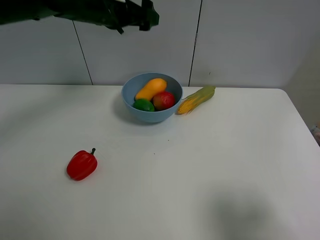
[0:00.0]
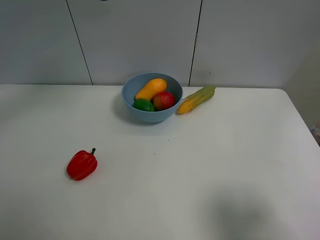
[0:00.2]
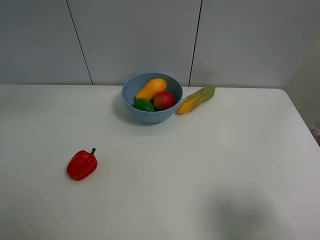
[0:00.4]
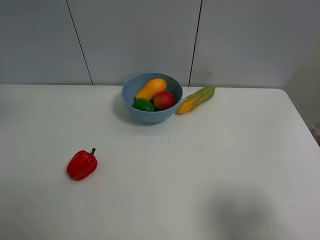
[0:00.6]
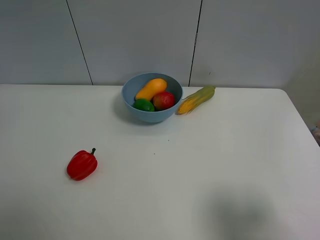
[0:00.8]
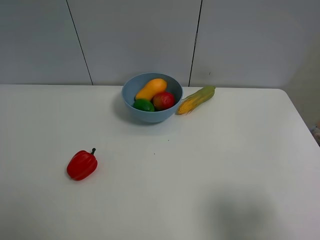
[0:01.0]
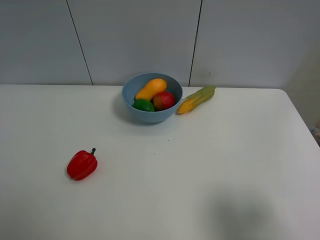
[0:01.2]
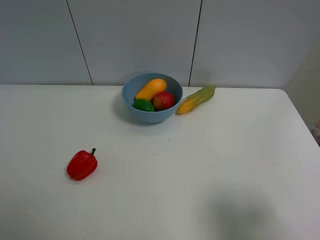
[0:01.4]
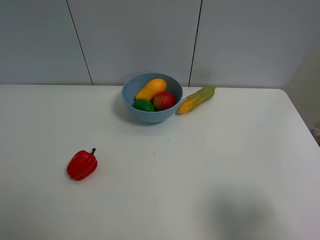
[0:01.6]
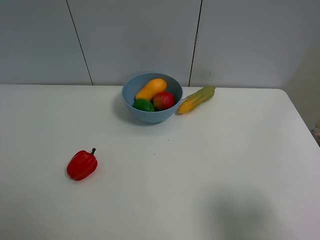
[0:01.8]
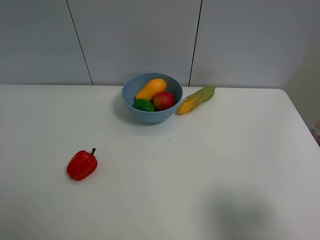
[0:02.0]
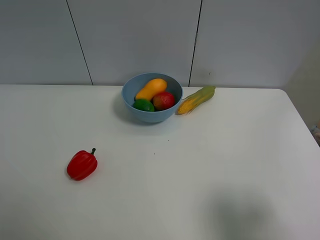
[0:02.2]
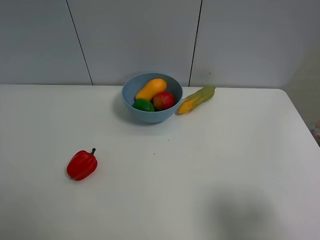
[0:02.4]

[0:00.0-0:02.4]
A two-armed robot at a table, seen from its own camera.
Task of the whole recording: Put the three fruits on the table into a bowl.
0:00.0 to 0:01.2: The left gripper shifts approximately 40 cm backward and to the left.

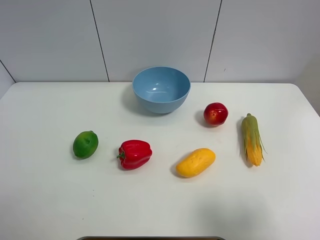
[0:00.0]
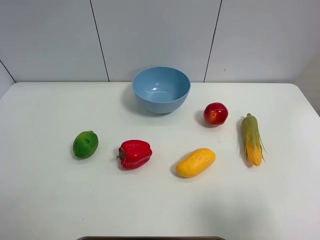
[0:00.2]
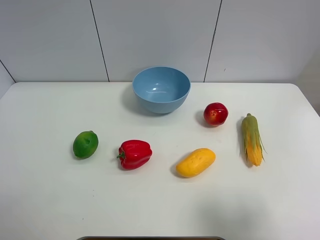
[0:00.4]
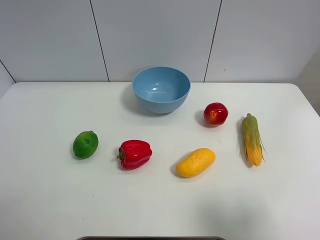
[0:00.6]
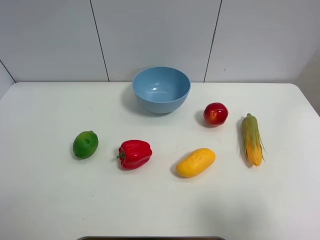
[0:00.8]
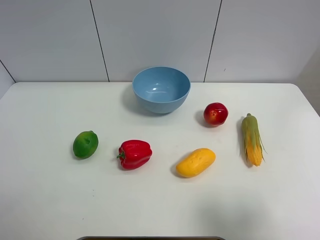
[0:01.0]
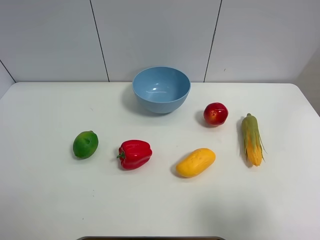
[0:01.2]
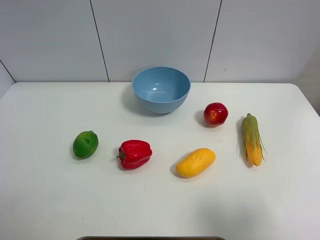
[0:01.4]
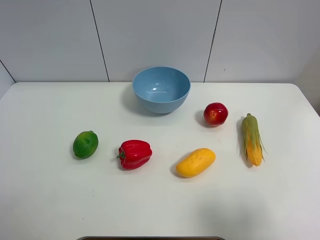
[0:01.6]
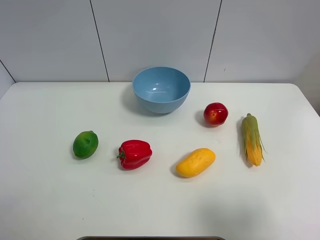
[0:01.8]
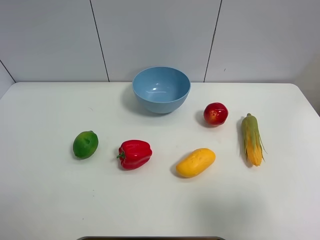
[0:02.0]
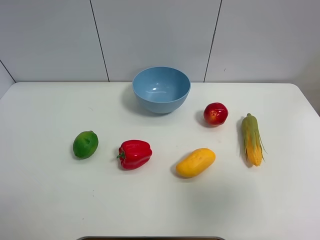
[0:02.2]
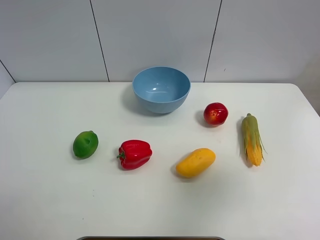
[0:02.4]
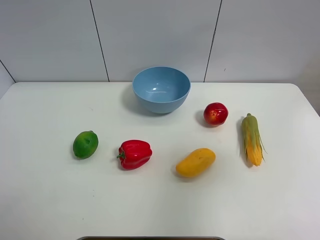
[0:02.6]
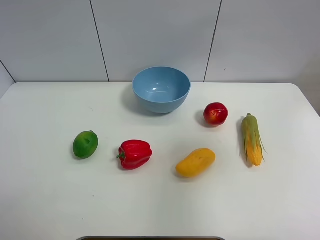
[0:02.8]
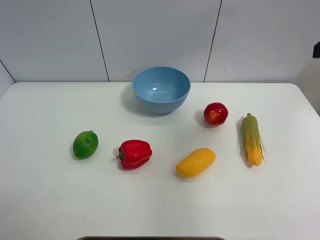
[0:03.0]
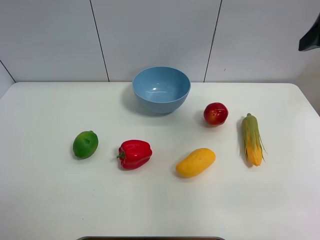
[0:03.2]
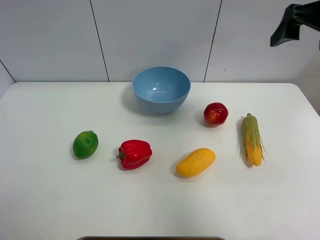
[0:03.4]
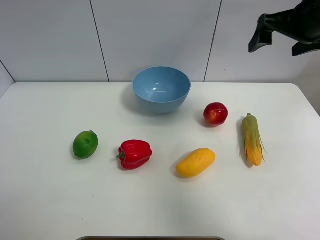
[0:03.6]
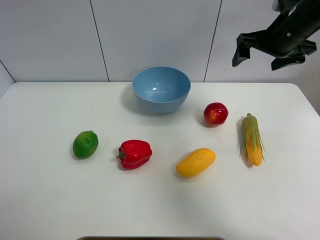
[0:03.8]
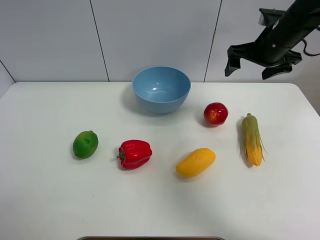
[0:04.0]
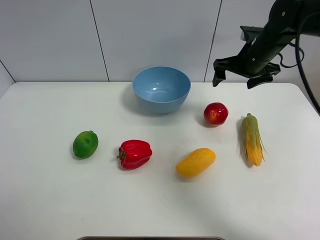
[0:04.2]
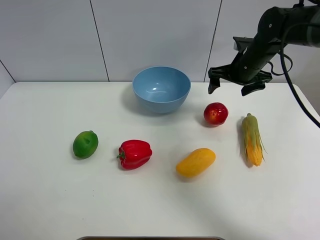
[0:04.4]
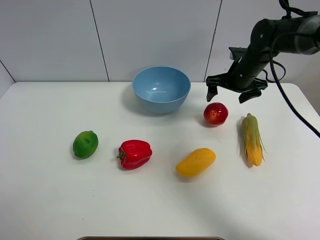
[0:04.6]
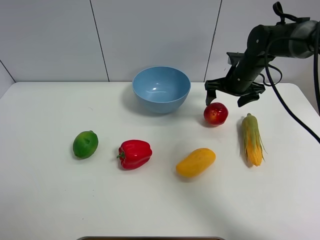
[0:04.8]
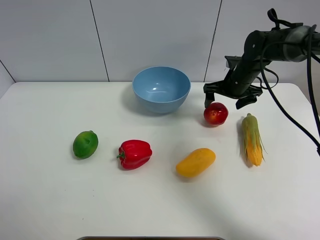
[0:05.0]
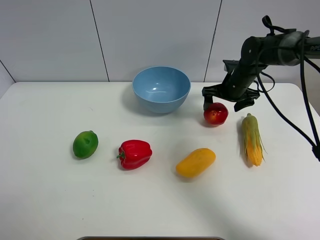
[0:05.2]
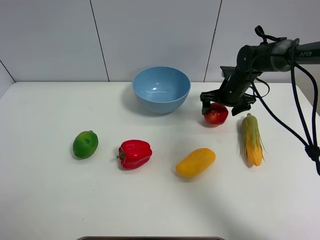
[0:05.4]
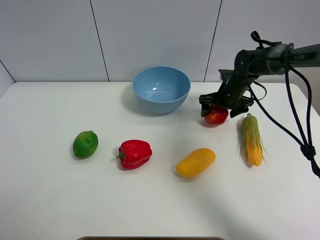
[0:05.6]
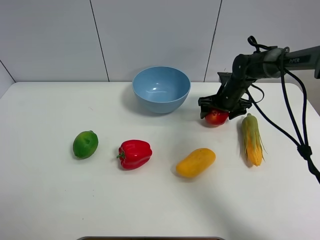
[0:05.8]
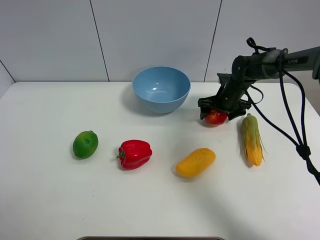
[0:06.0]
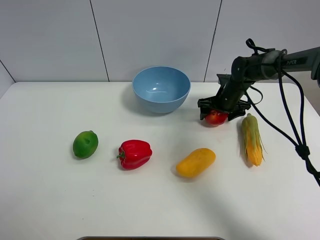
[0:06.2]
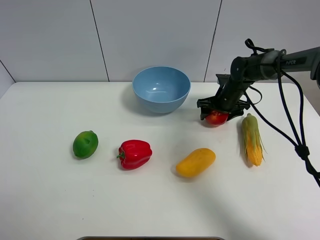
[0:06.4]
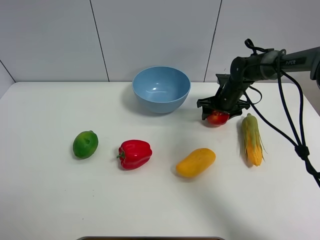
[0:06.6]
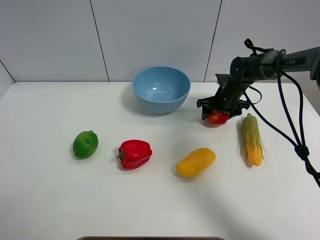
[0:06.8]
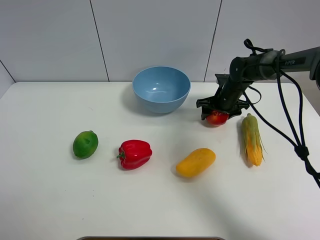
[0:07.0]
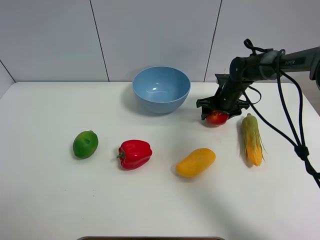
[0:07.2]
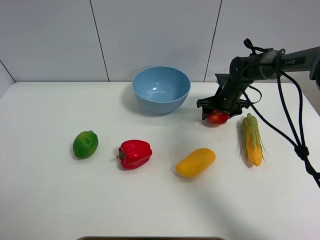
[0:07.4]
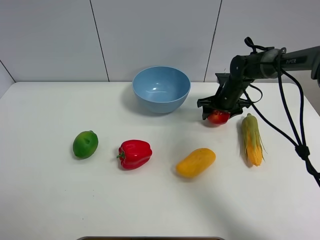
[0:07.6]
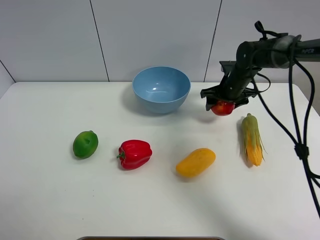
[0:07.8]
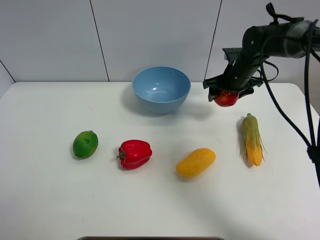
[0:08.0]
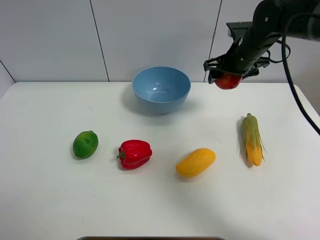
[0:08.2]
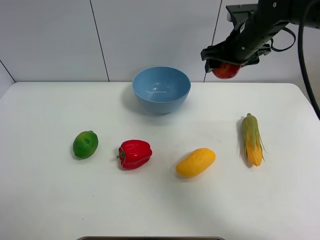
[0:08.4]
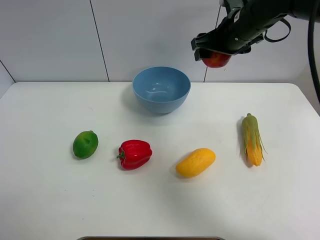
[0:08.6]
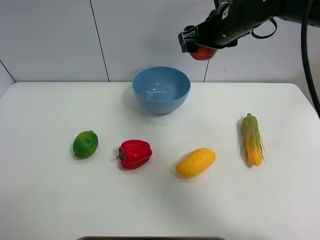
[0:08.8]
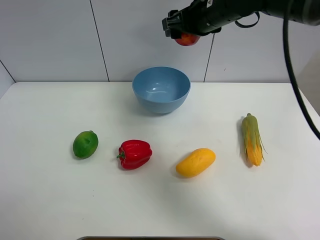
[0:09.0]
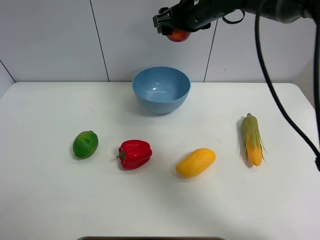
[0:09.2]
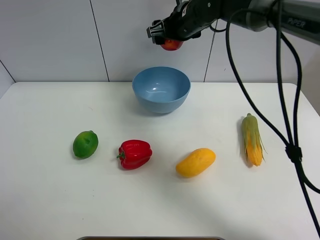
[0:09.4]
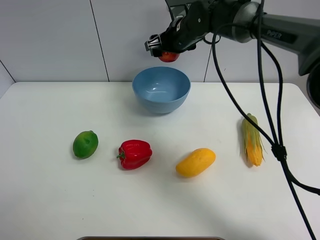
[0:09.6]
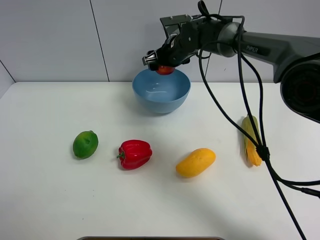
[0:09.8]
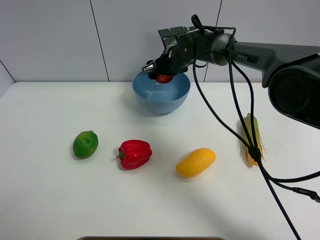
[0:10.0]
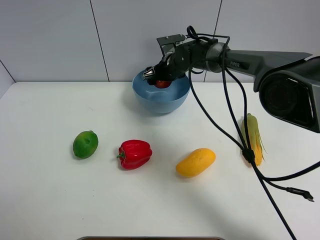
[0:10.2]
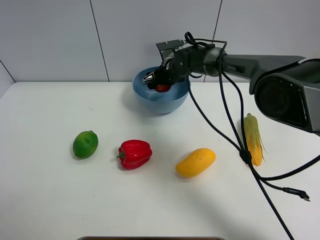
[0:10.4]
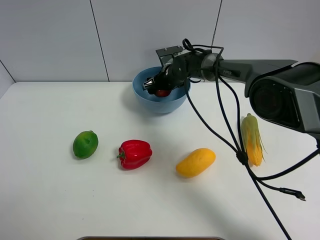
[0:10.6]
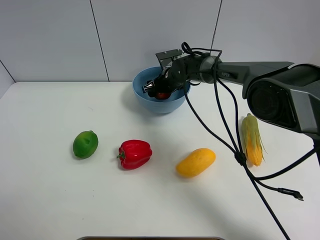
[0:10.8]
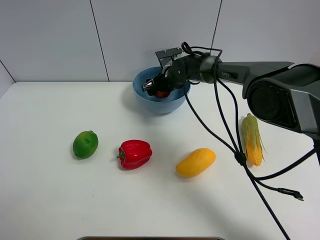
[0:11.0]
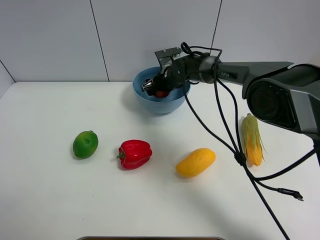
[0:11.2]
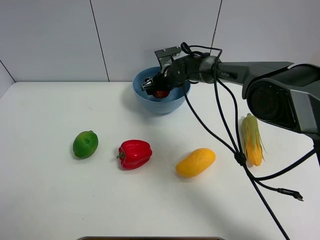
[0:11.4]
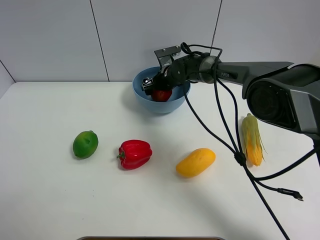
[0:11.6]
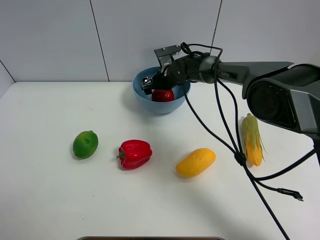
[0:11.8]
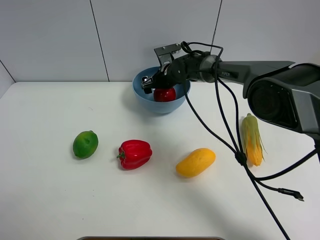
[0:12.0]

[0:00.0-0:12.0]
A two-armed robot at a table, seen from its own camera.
Task of the whole recording: Put the three fruits on the table into a bowl.
Step, 0:00.0 to 0:06.4: Grasp the pomegranate with right gripper.
0:00.0 to 0:01.6: Both grippers stay about where they are.
0:01.6 to 0:03.0: The right gripper goes some 25 cm forward and upward.
0:03.0 to 0:04.4: The right gripper goes about 30 cm forward and downward.
0:04.4 to 0:06.0: The right gripper travels downward by about 10 cm.
0:06.0 to 0:07.6: The right gripper closes its fingers.
0:07.6 to 0:09.0: The right gripper heads upward and to the left, covering some 25 cm.
0:09.0 to 0:10.4: The right gripper goes some 20 cm downward and forward.
0:10.4 to 0:12.0: The right gripper opens its fingers.

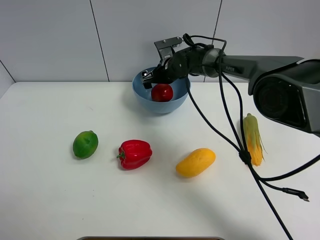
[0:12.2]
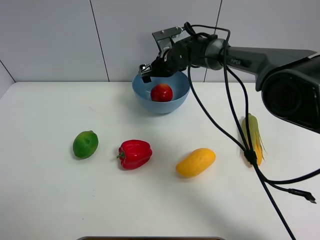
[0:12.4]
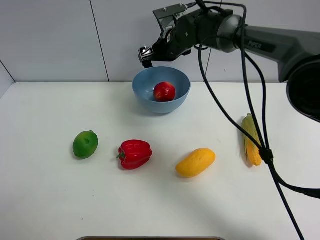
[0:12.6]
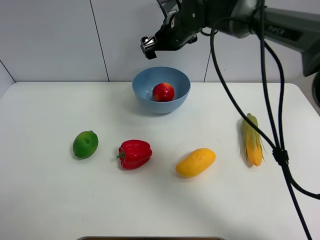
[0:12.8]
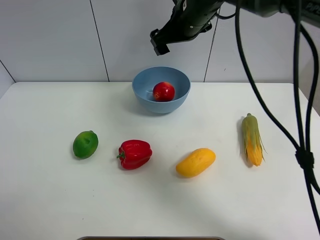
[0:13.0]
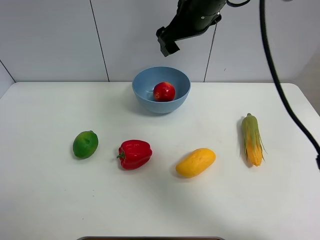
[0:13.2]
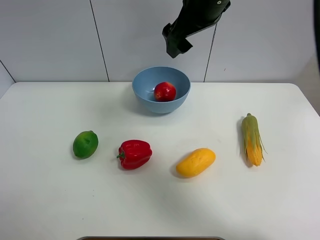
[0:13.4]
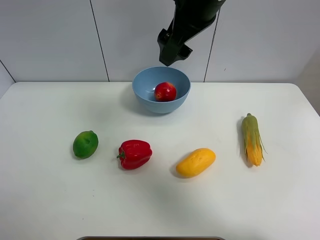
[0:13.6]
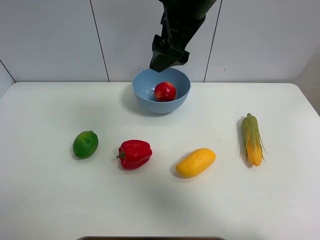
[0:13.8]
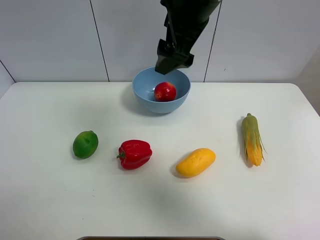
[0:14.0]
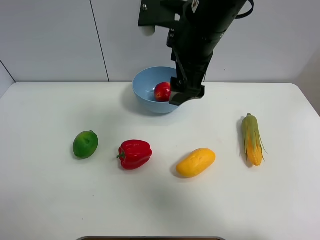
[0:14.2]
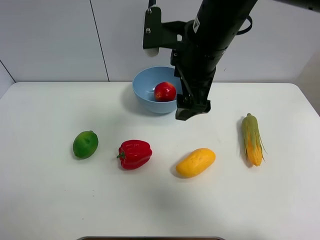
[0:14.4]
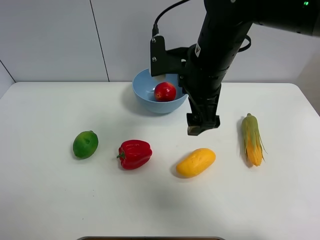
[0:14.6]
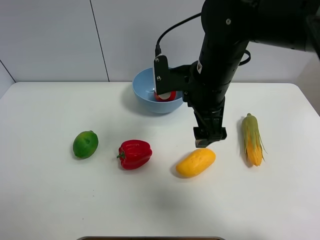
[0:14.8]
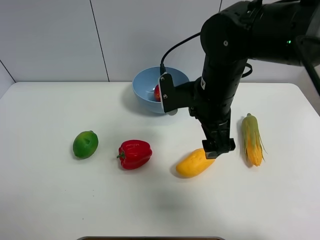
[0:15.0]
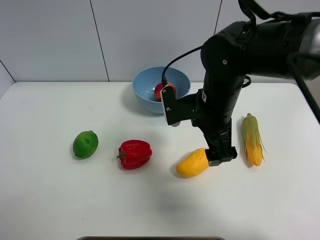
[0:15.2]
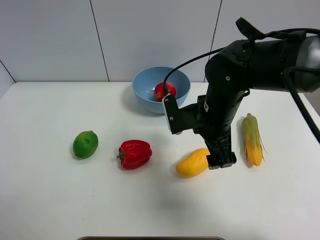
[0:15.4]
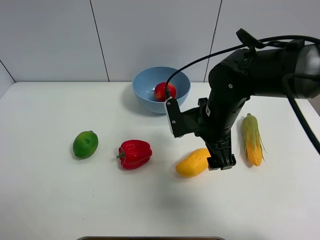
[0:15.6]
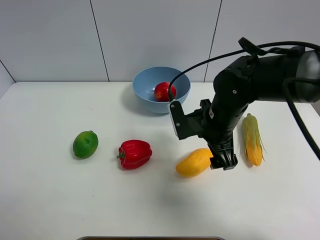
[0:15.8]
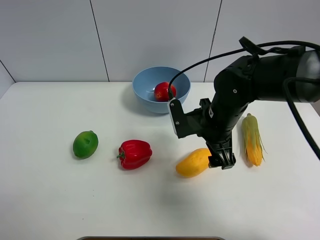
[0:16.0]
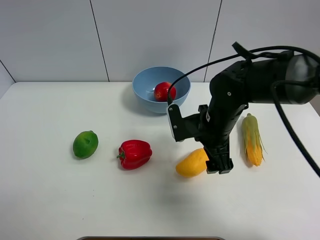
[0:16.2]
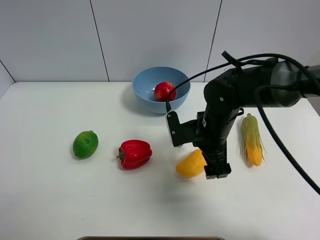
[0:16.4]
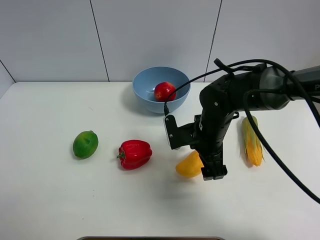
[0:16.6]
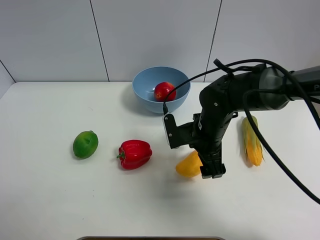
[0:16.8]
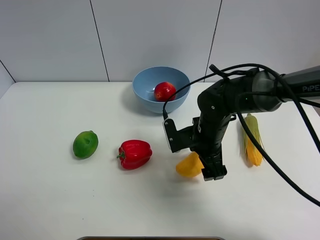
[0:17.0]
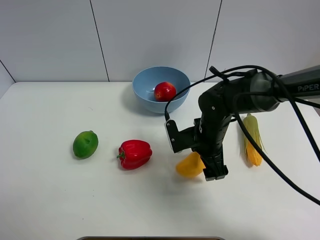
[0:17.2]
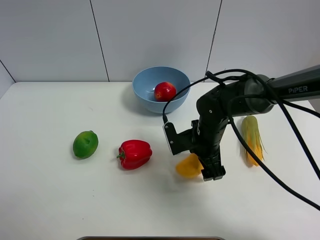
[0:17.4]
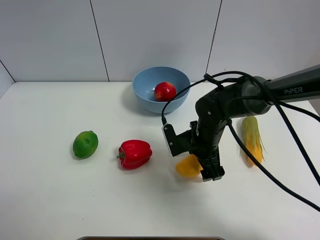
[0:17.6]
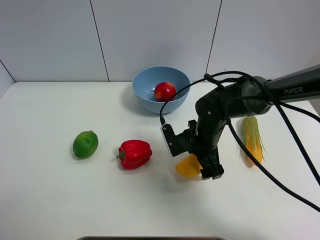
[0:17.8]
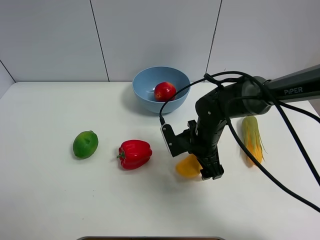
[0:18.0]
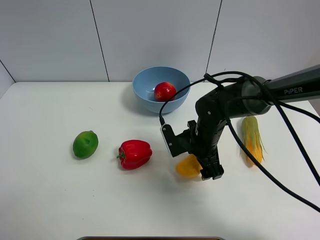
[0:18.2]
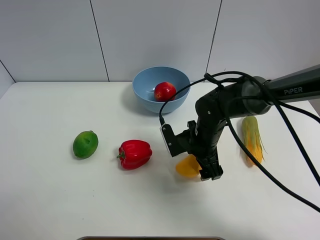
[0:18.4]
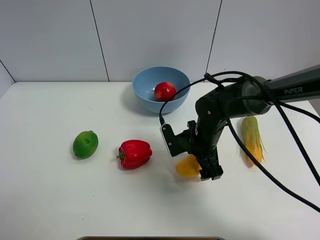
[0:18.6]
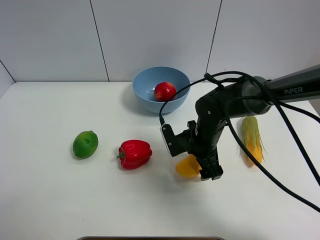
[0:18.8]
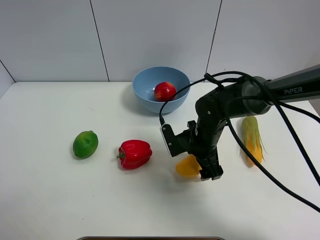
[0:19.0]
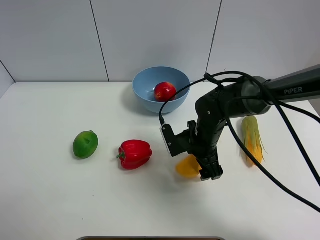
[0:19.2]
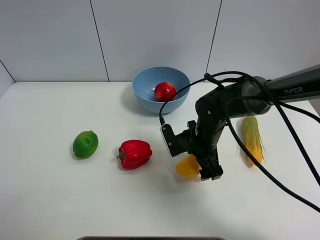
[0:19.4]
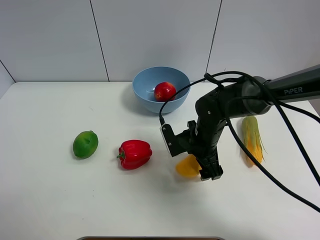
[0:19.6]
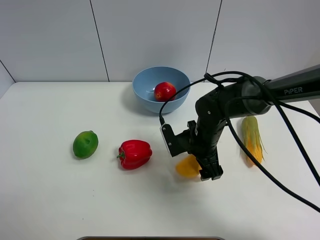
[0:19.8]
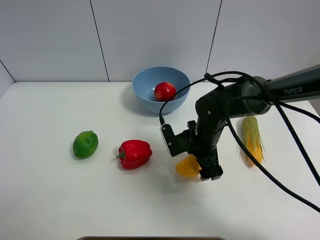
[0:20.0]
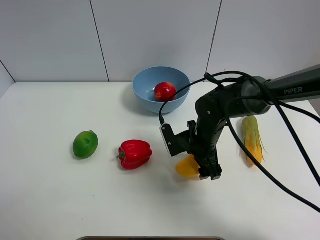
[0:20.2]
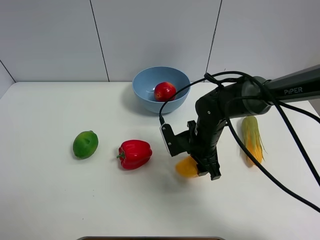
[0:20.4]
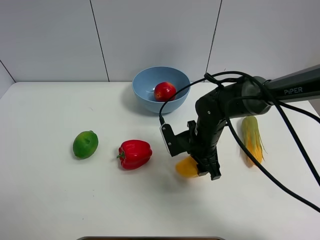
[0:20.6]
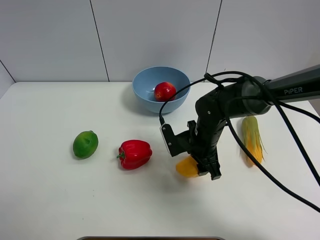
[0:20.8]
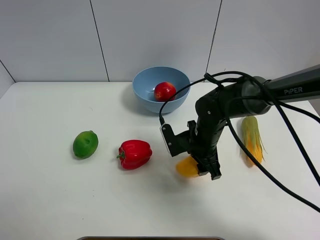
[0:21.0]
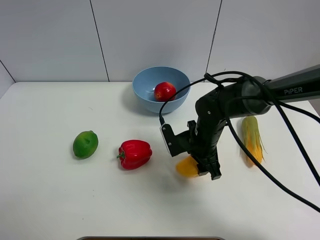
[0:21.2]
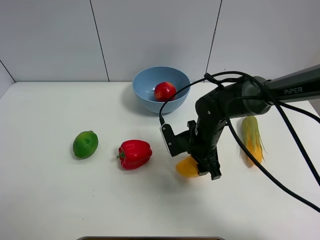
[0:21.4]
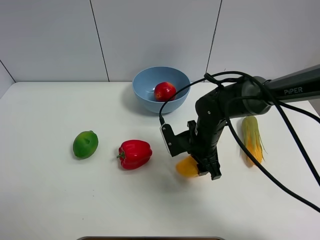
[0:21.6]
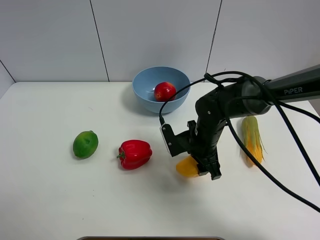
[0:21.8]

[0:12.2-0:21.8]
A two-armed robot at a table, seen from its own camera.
Task of the whole recording: Put the three fruits on the table into a bowl.
Step, 0:12.2 to 0:20.4: Grasp the mango with right gripper.
0:12.2 to 0:13.8: The right gripper travels upward and backward by about 30 cm.
0:13.8 to 0:15.4: The right gripper moves downward, about 20 cm.
0:15.4 to 0:17.0: The right gripper travels downward by approximately 10 cm.
0:17.0 to 0:18.6: There are only small adjustments of the grippers.
